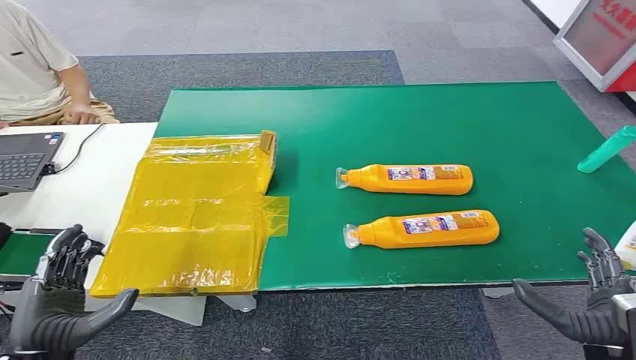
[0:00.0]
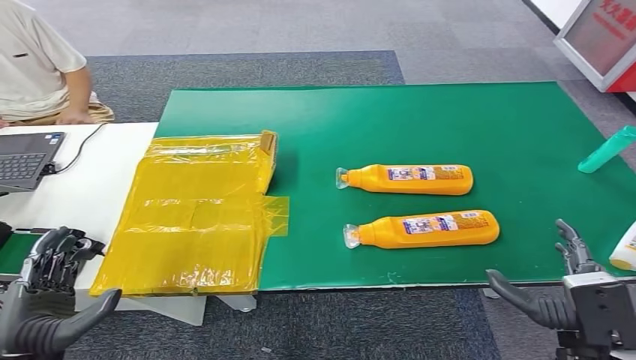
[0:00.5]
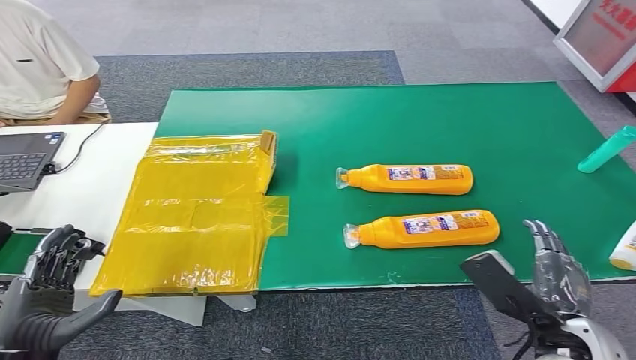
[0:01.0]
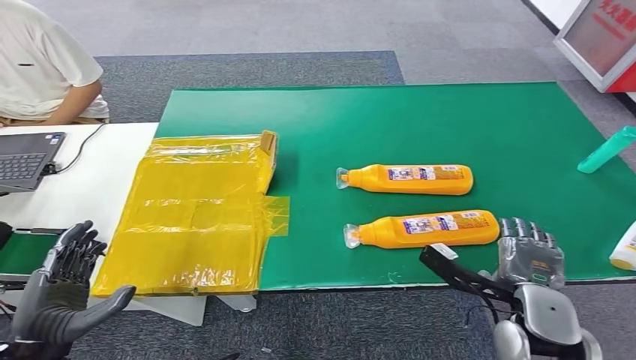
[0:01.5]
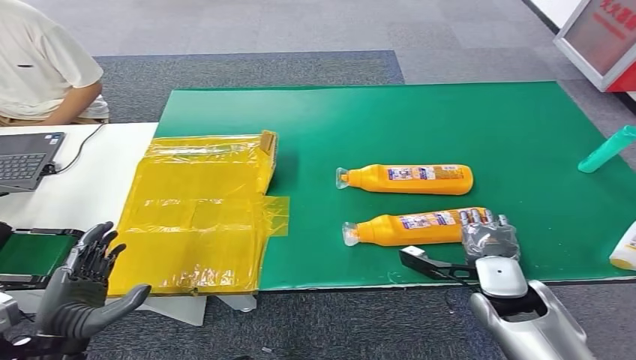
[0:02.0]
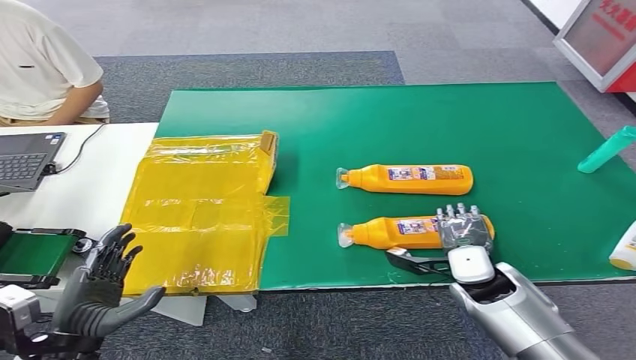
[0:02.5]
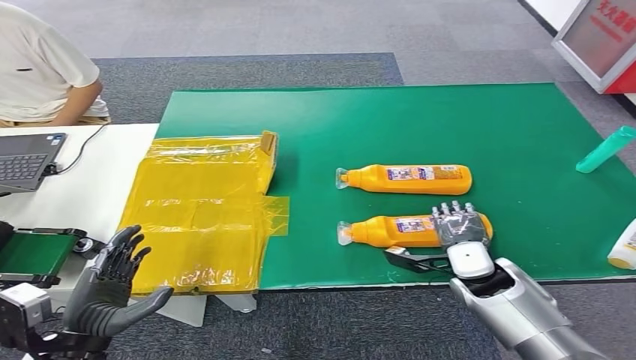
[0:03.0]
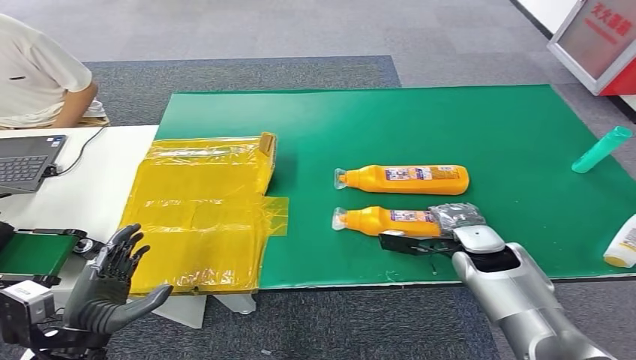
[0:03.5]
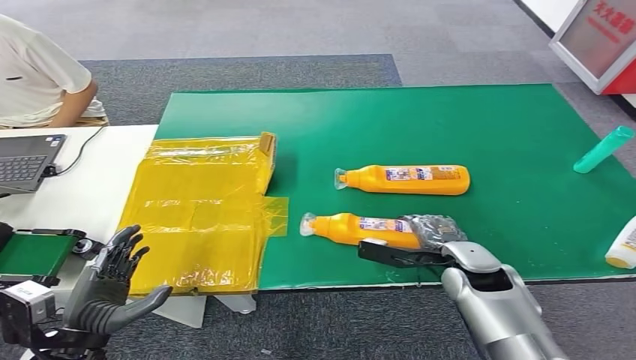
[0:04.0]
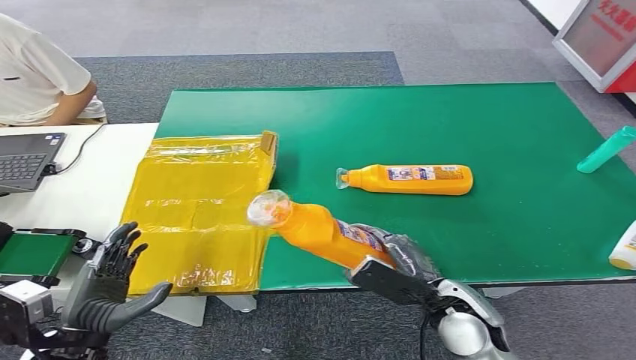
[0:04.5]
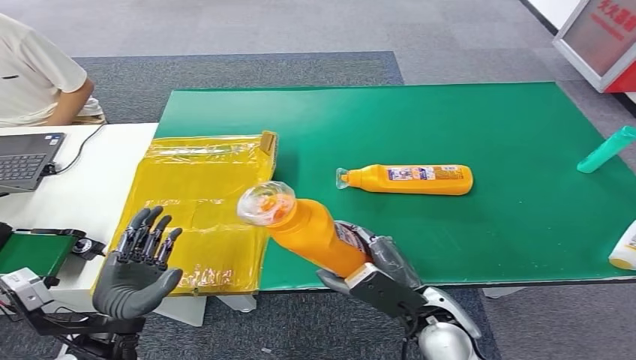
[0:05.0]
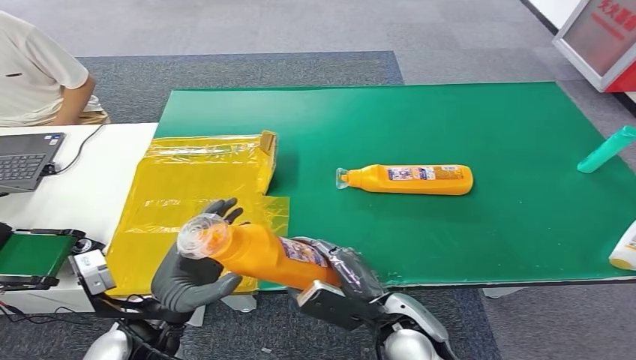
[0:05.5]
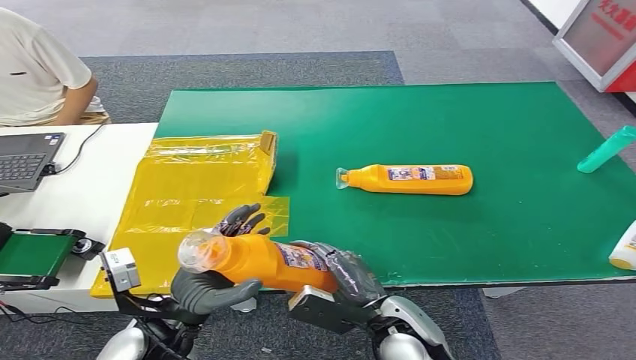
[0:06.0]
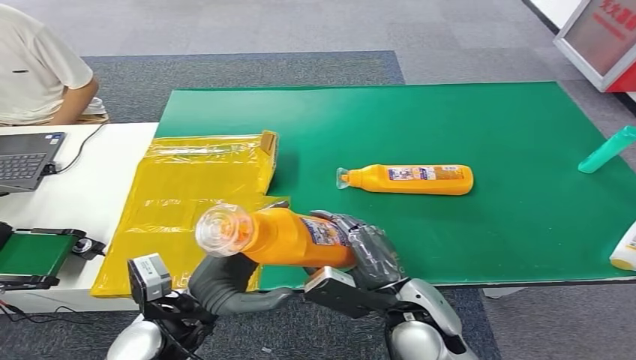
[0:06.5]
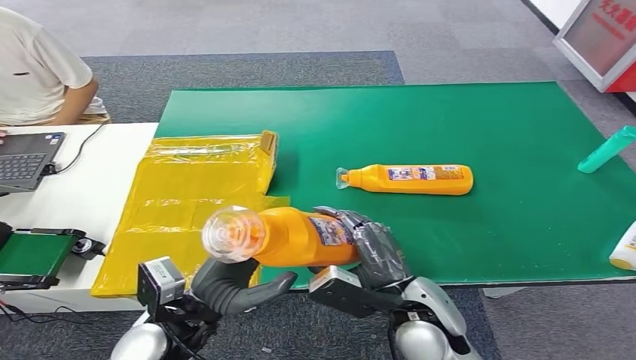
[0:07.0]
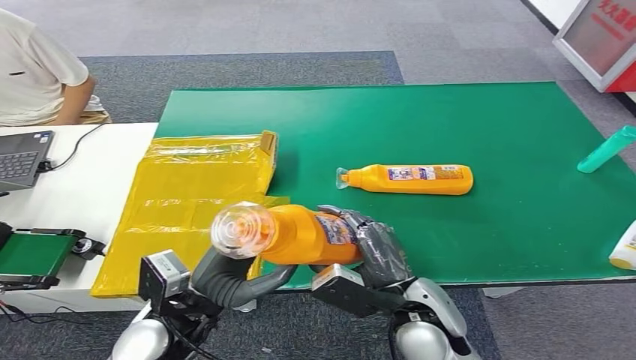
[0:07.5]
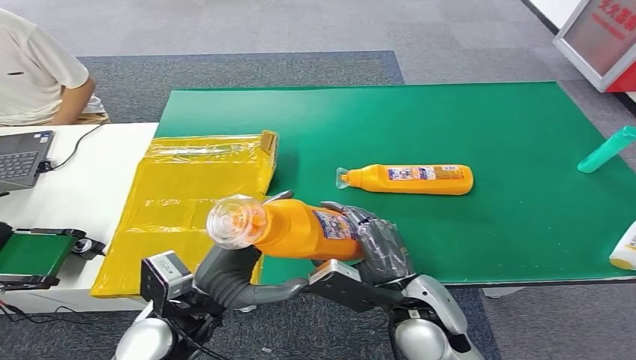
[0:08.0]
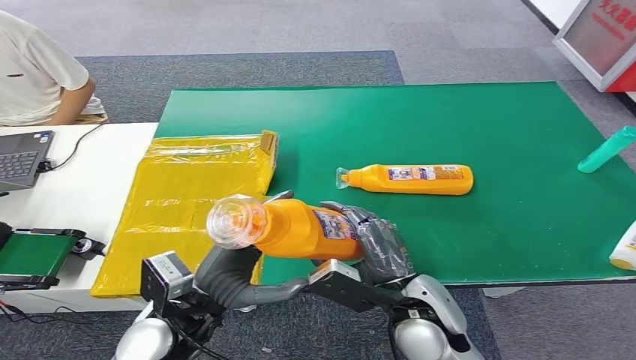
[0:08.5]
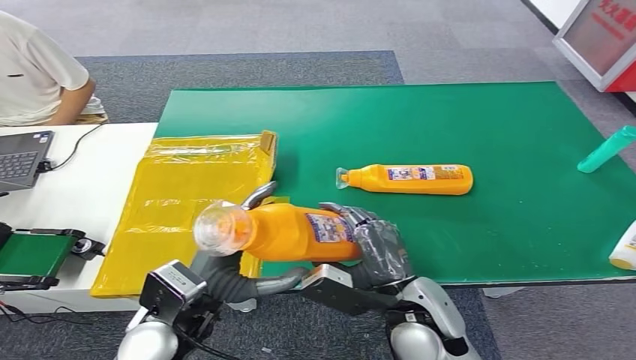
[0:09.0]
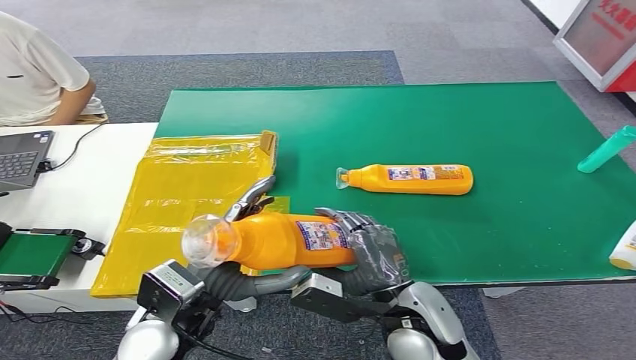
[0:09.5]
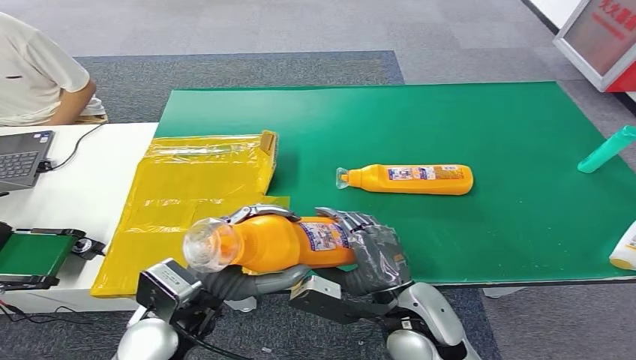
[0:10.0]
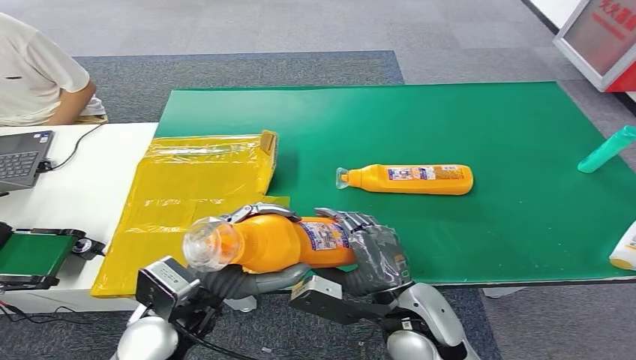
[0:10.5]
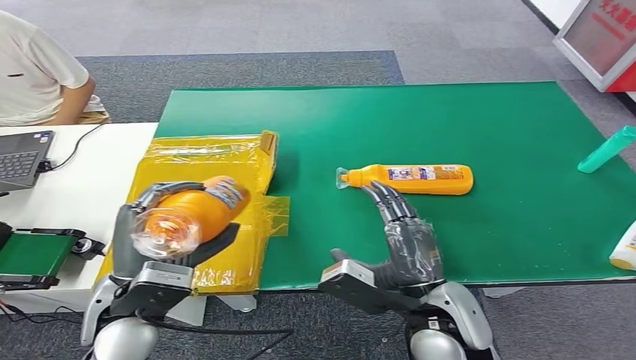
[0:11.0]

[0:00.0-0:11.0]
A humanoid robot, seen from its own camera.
Step, 0:00.0 to 0:04.5: Pick up the bottle from the table.
0:02.0 to 0:03.5: The right hand shifts some 5 cm forward.
0:05.5 to 0:07.5: There are only small adjustments of the hands.
0:07.5 to 0:09.0: The hands make only small movements.
0:09.0 to 0:11.0: The left hand shifts by about 5 cm.

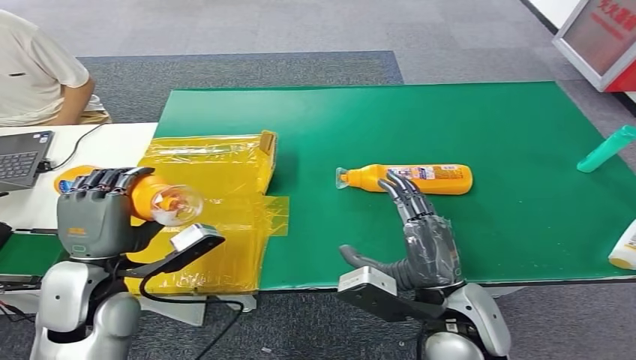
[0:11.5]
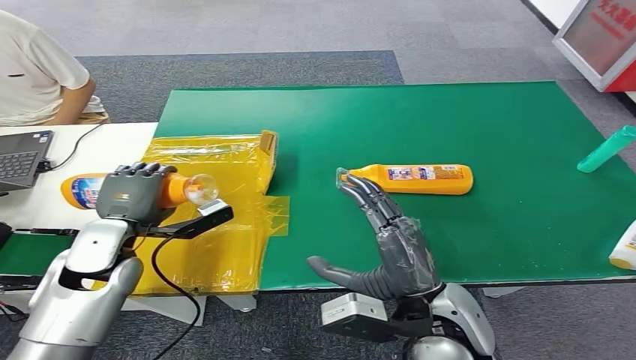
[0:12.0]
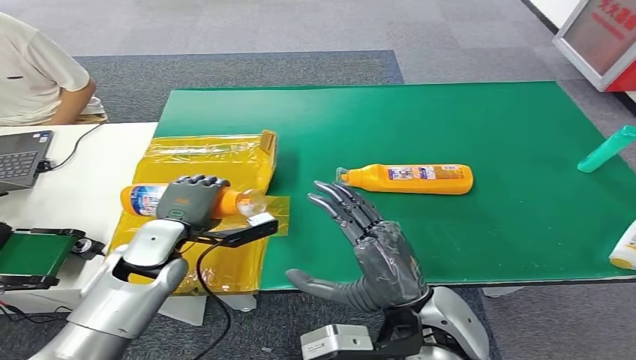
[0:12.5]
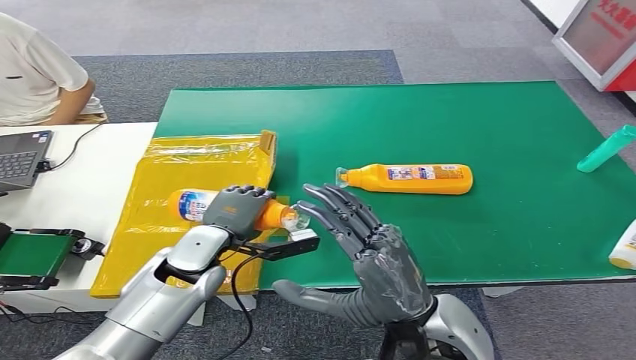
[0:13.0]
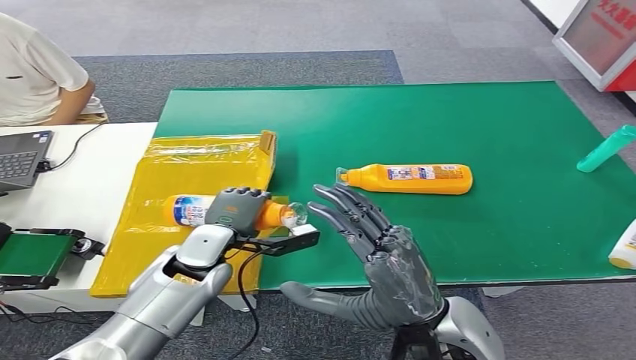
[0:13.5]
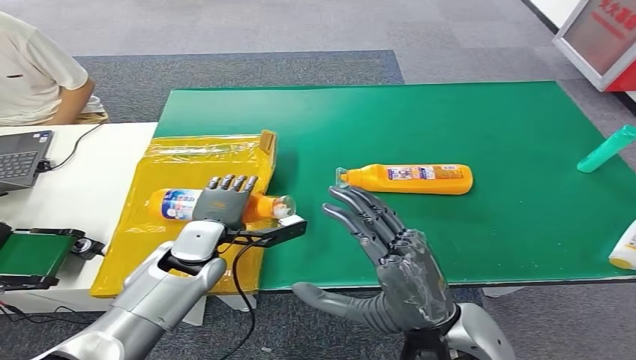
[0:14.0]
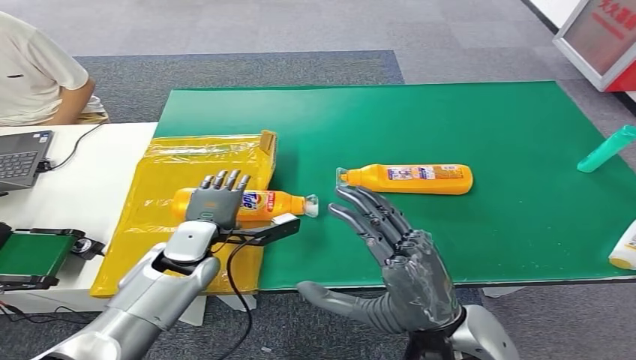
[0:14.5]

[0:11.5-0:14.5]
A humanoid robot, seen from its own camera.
Step, 0:11.5 to 0:14.5: Turn the bottle to the front side.
0:13.0 to 0:14.5: The hands make only small movements.

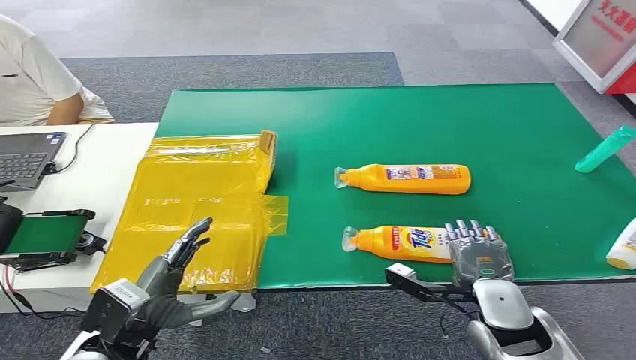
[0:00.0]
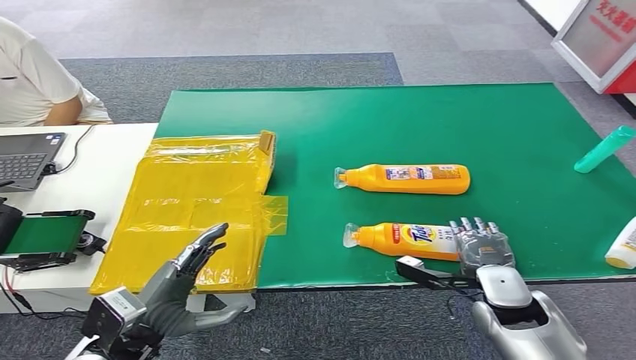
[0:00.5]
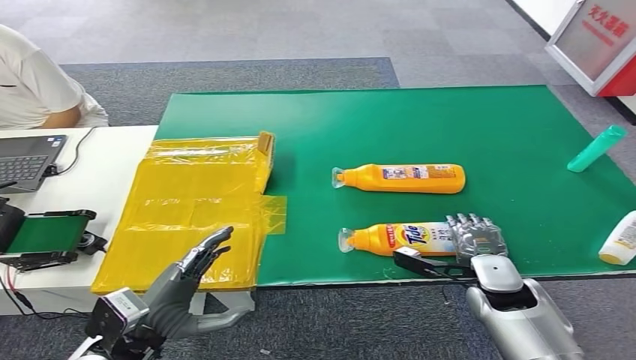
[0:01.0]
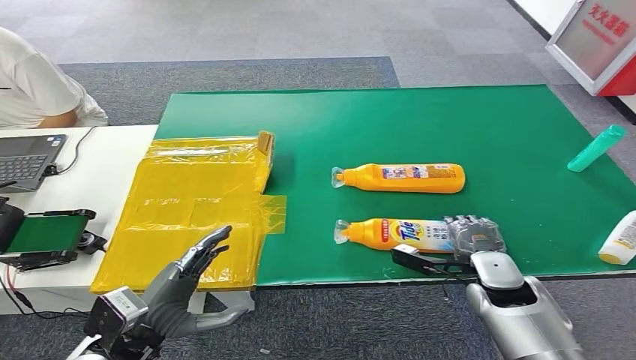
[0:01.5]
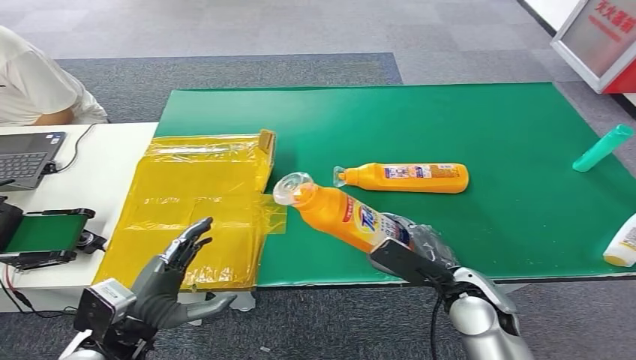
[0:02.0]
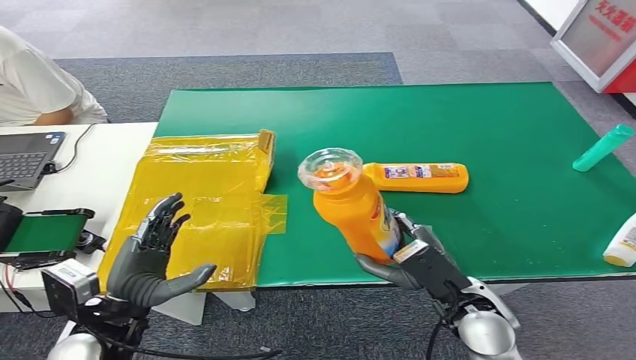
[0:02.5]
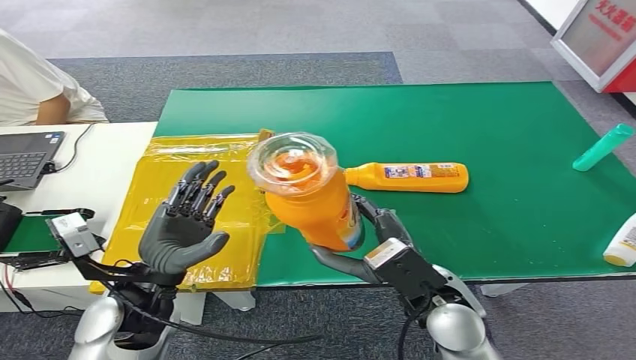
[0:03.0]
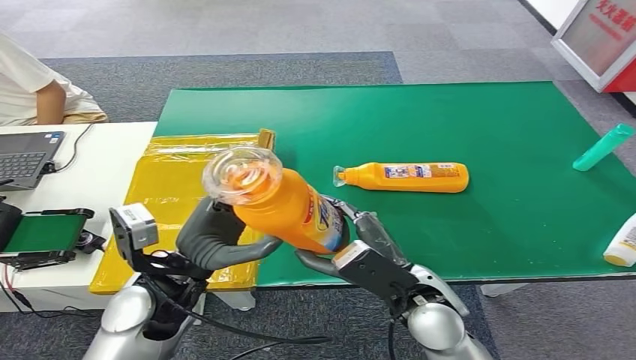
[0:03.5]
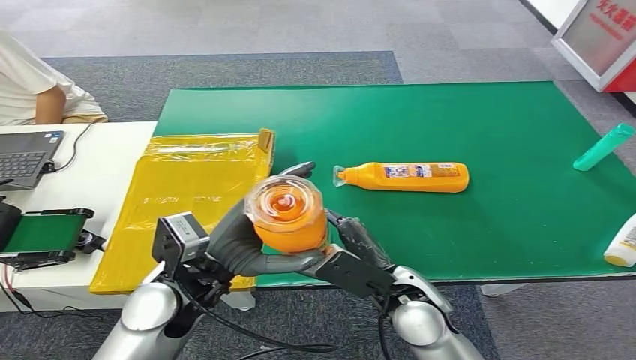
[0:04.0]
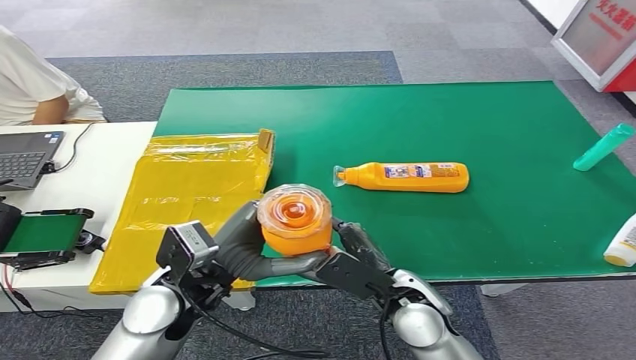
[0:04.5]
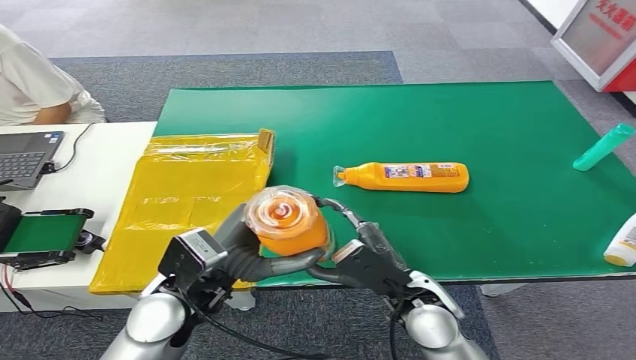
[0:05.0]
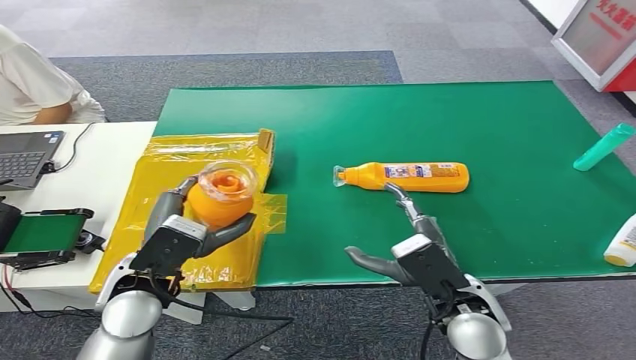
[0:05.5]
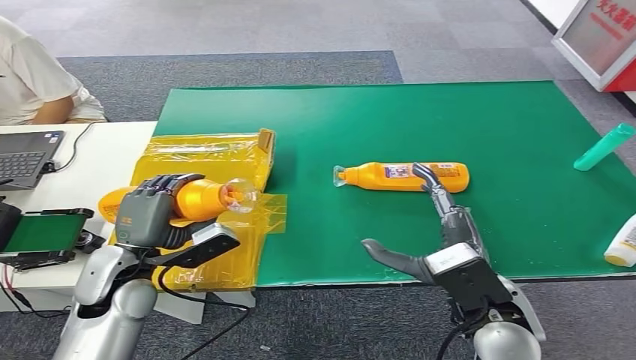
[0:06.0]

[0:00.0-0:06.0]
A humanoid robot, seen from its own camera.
Step, 0:00.0 to 0:02.5: Pick up the bottle from the table.
0:02.0 to 0:04.0: The right hand travels to the left by some 10 cm; the left hand goes about 15 cm to the right, upward and forward.
